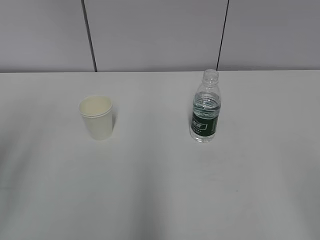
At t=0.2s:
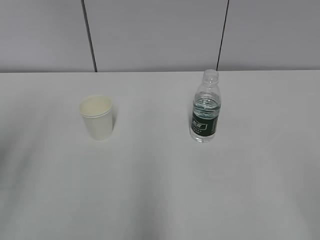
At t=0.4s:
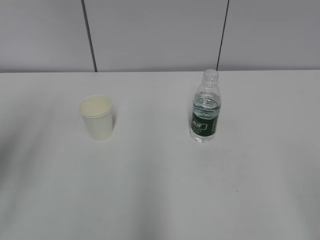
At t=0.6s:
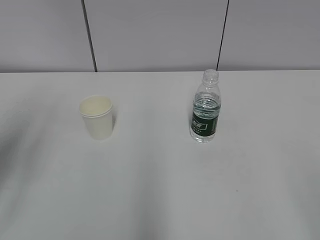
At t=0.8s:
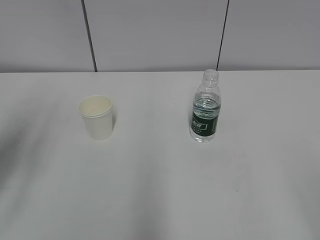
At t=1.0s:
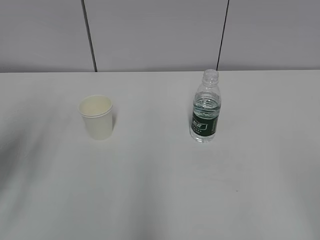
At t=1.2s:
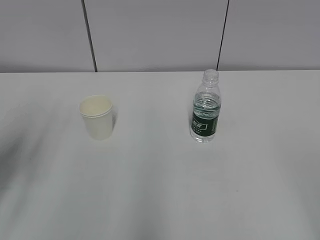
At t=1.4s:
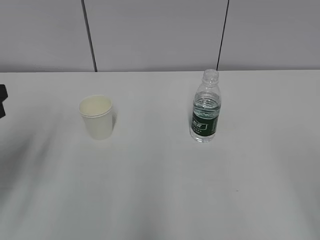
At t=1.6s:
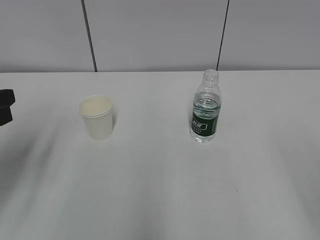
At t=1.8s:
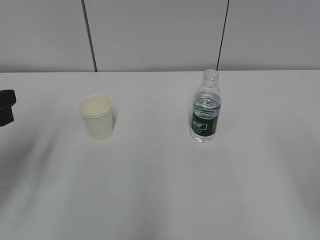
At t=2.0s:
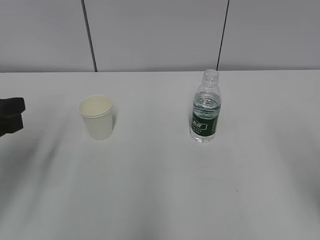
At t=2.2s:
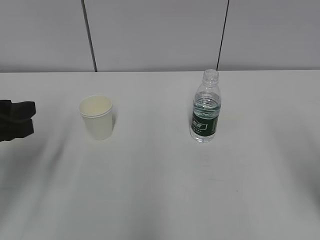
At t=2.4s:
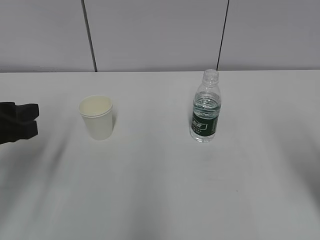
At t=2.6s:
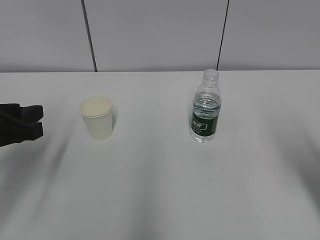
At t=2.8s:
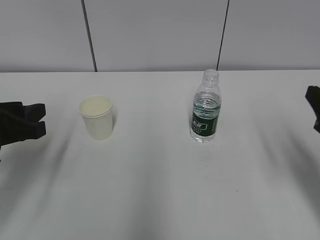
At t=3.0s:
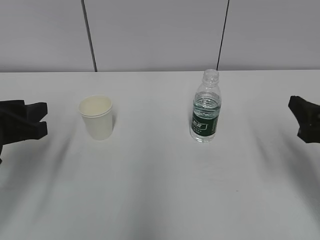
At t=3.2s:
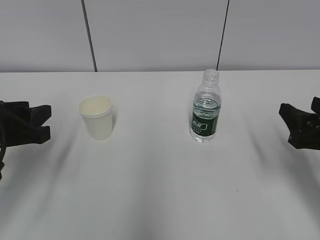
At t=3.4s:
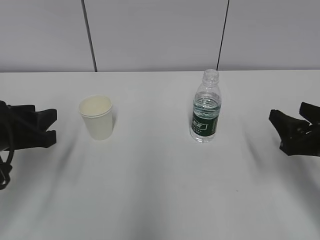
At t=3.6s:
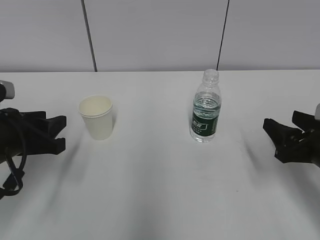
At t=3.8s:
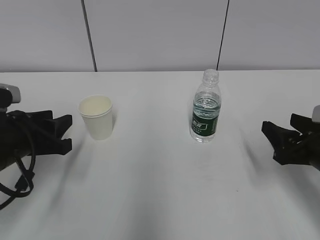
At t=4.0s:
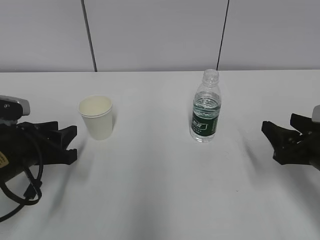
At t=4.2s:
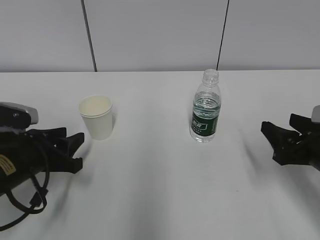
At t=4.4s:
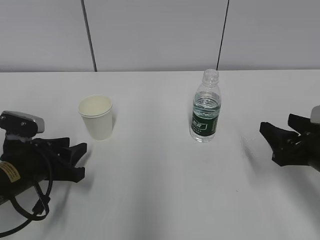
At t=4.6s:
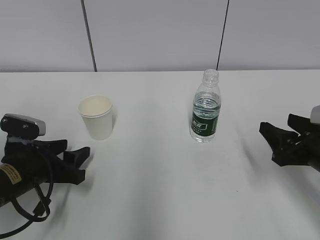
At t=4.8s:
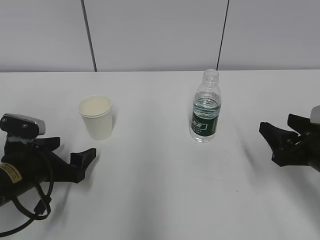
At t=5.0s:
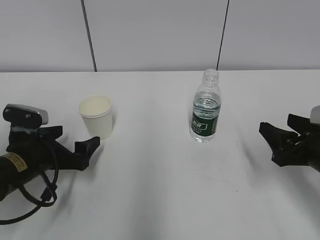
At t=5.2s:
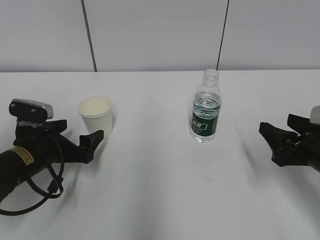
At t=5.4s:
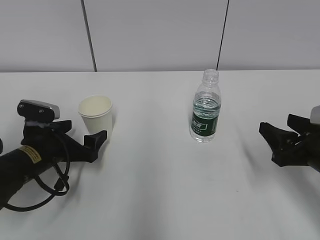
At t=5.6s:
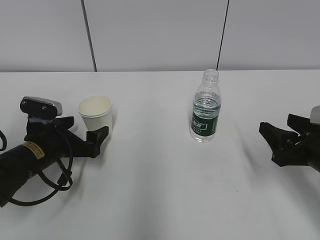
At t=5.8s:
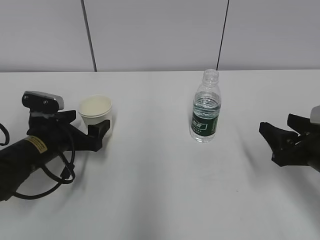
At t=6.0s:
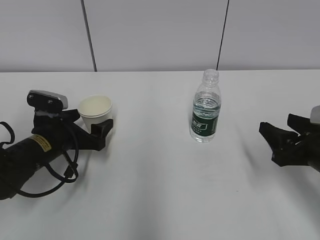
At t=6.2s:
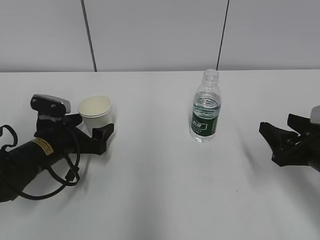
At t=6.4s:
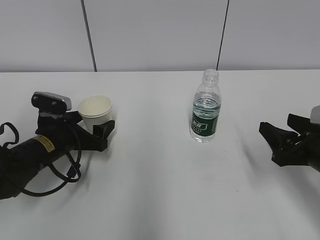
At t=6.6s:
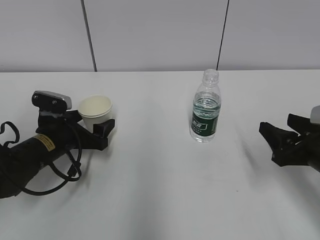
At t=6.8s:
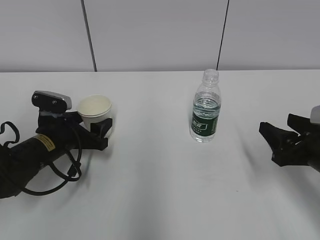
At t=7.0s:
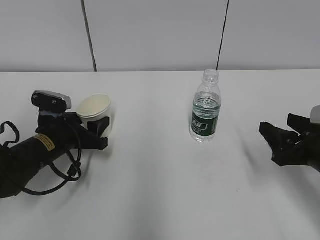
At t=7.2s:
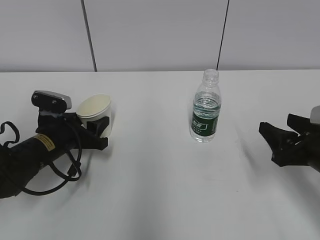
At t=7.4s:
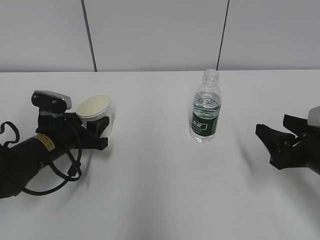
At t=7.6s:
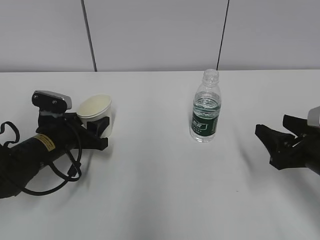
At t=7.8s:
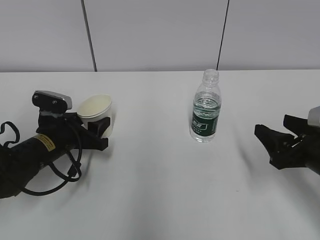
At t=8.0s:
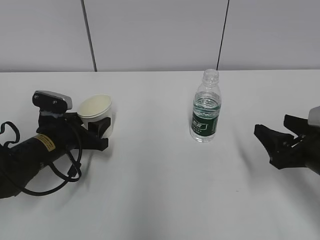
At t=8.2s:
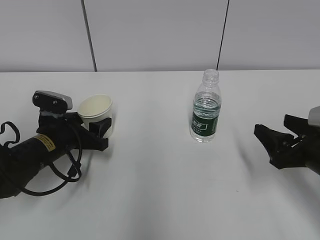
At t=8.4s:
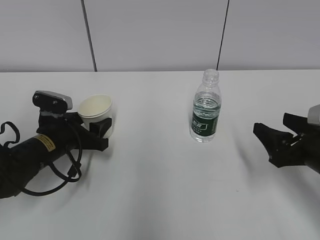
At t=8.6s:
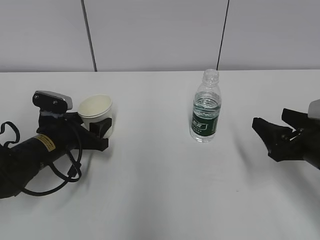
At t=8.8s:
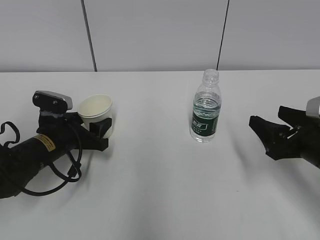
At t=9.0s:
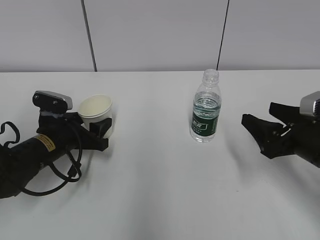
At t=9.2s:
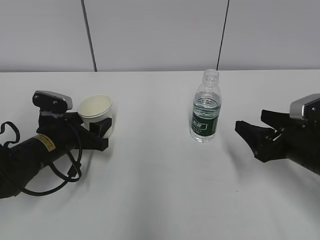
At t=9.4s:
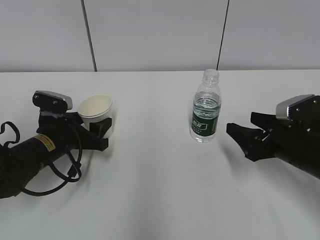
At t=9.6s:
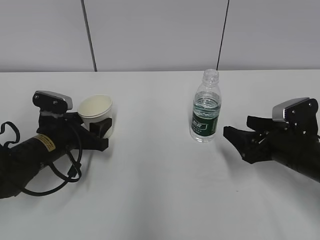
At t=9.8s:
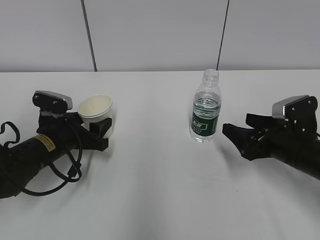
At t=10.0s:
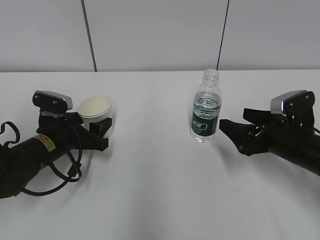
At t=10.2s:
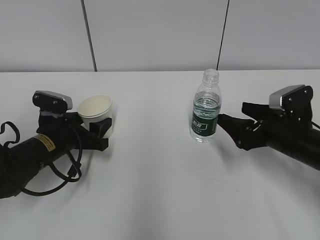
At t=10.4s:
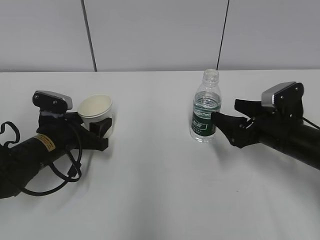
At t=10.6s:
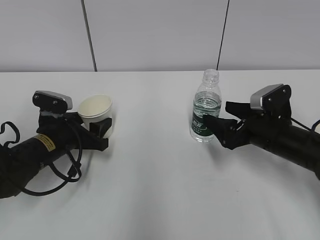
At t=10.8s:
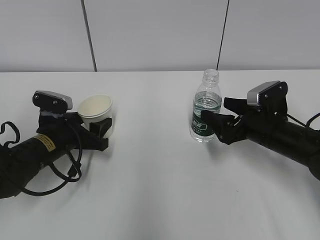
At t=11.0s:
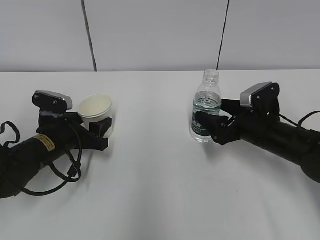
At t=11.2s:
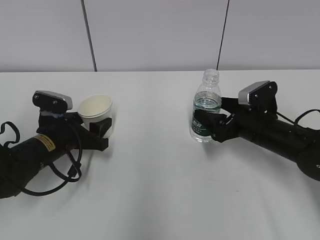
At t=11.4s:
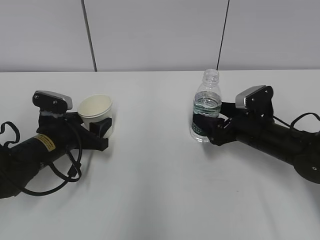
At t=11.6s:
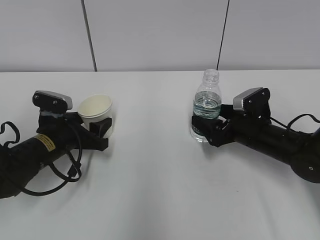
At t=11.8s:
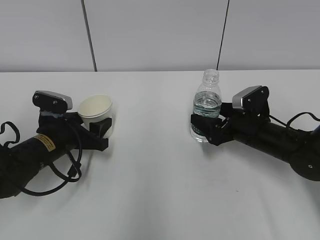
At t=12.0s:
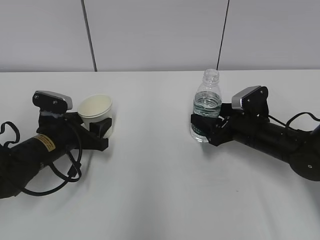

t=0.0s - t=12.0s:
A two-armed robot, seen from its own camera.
Step, t=0.0s - t=9.8s: Grab the paper cup with the left hand.
Step, t=10.0s - t=10.8s: Grab the water bottle with the right hand.
t=0.0s - t=1.6s: The left gripper shifts approximately 10 cm downward and forward.
t=1.6s - t=3.0s: The left gripper moves roughly 5 cm. The right gripper heads forward and downward, covering about 20 cm.
t=3.0s - t=4.4s: The right gripper shifts roughly 5 cm downward, while the left gripper heads downward, covering about 10 cm.
t=4.4s - t=6.0s: The left gripper goes about 5 cm forward, and opens up.
t=6.0s - t=7.6s: The left gripper closes its fingers.
t=7.6s - t=9.0s: The grippers move only a little.
t=9.0s - t=10.4s: The right gripper shifts approximately 5 cm forward, and opens up.
t=10.4s - t=12.0s: The right gripper moves about 5 cm, and closes.

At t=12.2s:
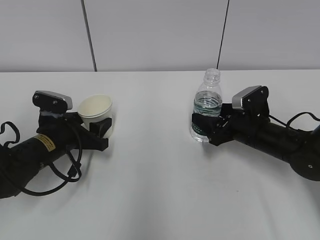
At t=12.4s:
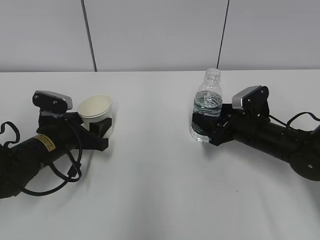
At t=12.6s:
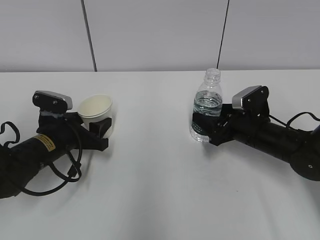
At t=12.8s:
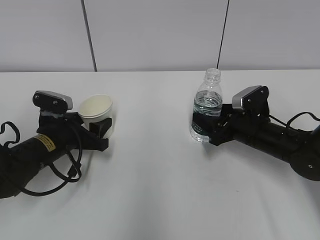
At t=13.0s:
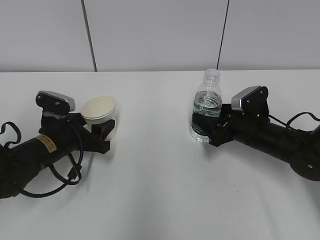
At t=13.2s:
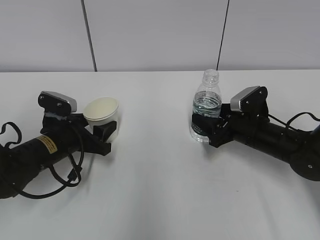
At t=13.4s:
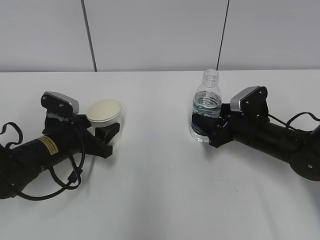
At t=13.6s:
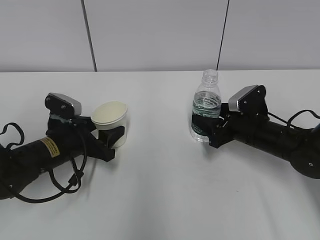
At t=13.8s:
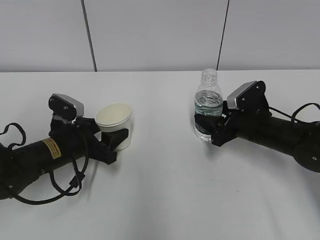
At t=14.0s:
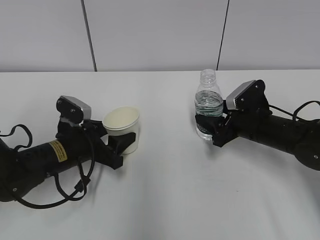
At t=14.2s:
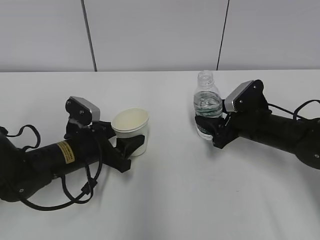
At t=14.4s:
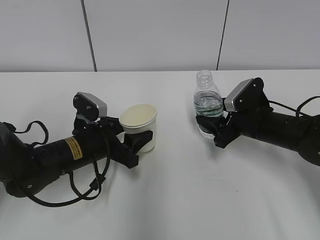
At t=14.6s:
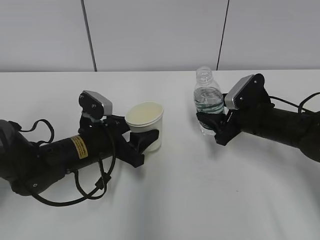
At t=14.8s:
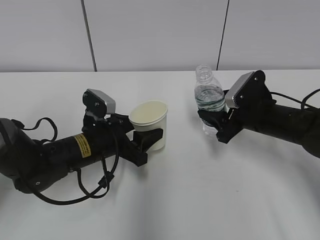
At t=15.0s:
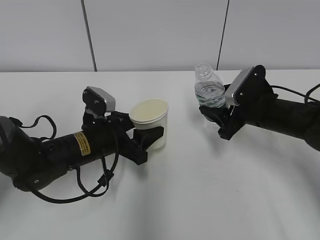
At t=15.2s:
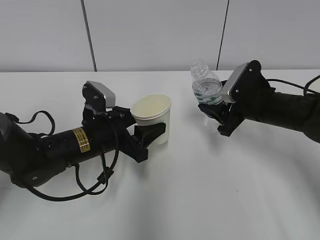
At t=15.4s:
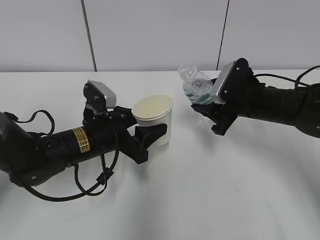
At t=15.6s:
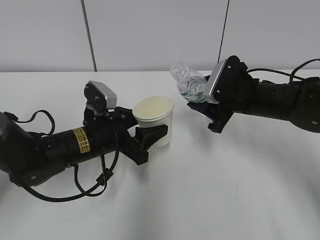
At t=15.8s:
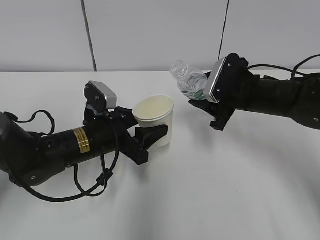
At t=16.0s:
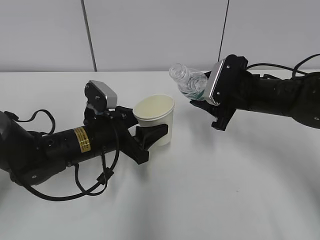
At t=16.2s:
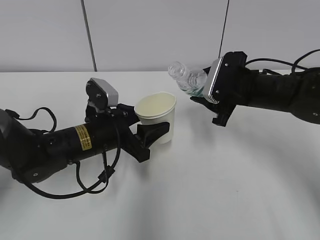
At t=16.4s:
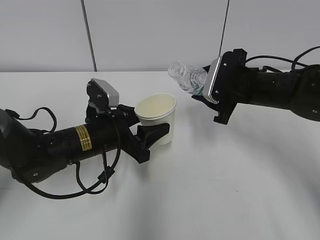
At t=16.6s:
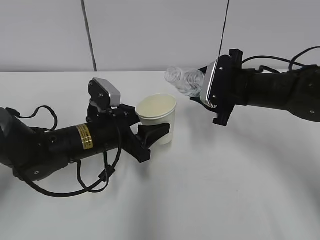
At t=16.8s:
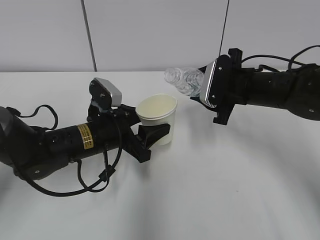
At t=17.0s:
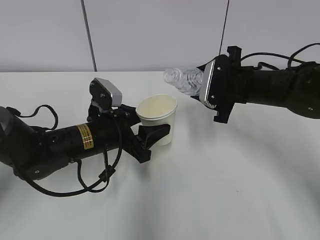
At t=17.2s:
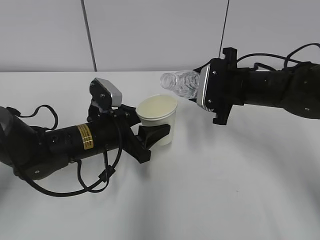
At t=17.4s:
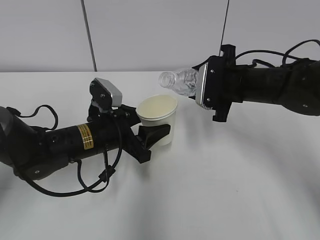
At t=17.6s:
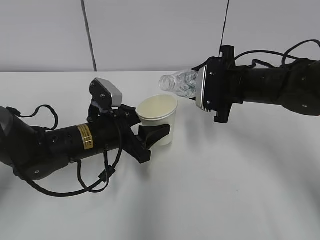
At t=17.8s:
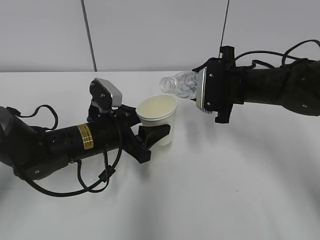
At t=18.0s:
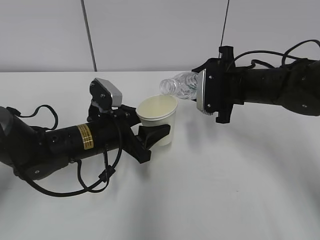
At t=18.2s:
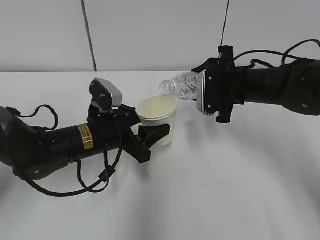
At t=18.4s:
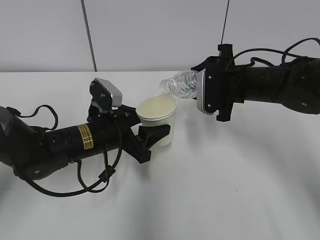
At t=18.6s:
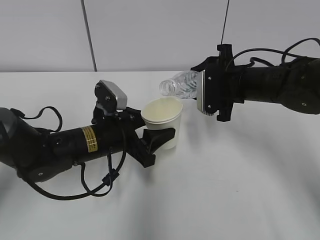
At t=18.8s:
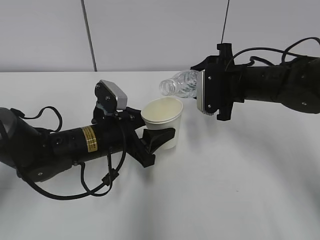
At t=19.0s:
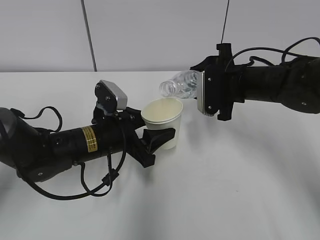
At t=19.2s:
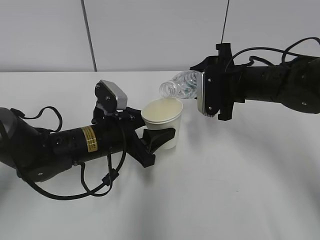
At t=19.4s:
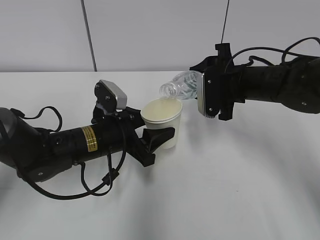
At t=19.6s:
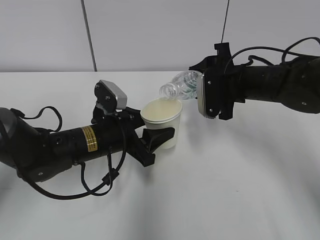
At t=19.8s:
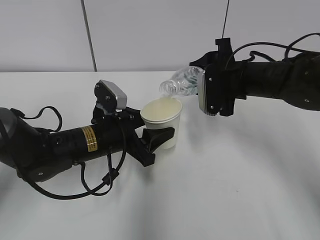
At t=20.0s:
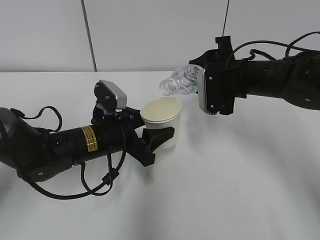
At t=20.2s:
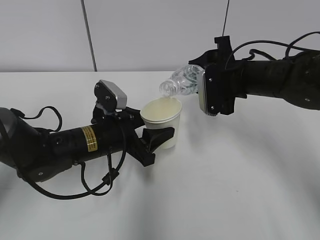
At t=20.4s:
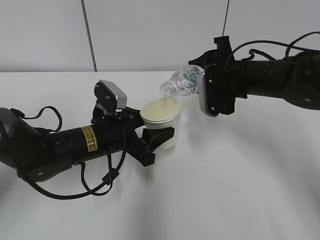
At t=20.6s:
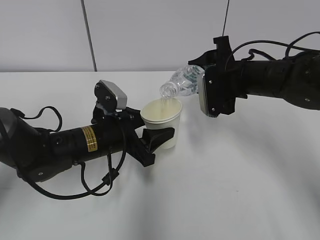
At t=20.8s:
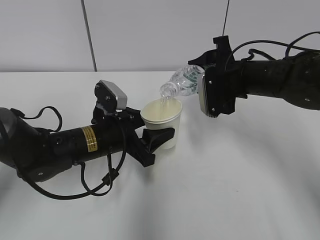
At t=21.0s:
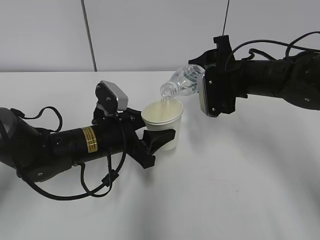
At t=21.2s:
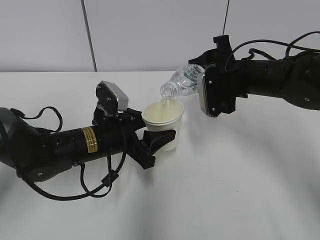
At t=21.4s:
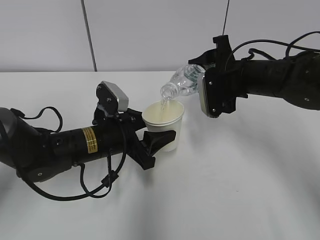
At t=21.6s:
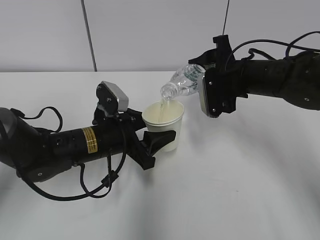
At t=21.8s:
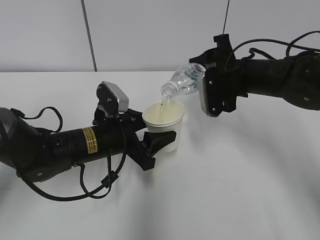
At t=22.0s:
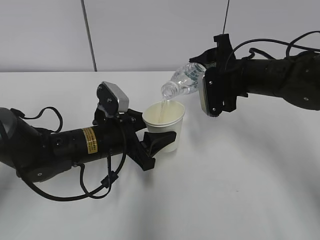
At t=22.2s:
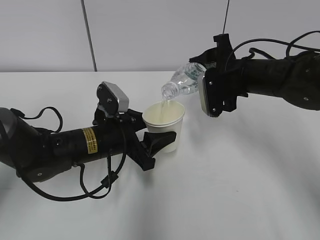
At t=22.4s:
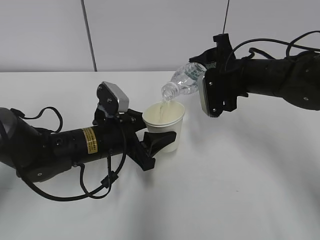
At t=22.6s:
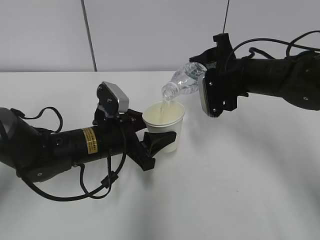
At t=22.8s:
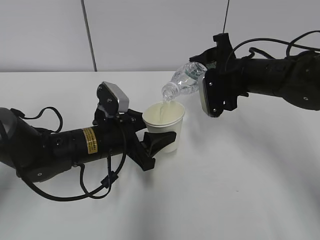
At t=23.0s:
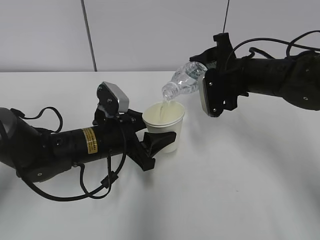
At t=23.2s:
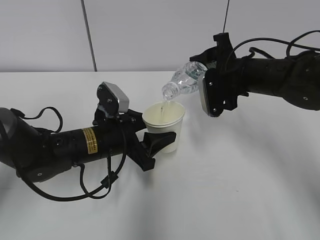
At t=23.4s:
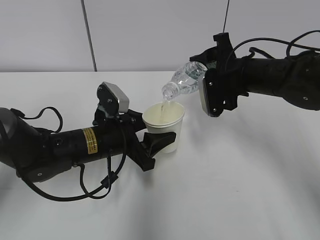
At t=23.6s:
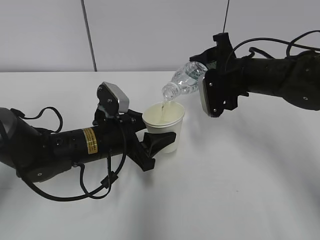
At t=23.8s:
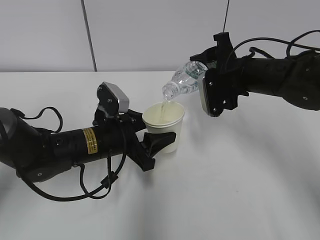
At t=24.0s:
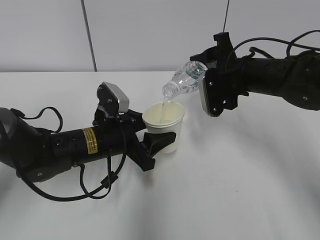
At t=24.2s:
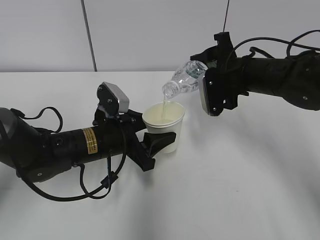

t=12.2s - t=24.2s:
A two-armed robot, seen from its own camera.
Step, t=12.2s - t=16.2s: Lift the paper cup with the left hand.
Step, t=16.4s - t=20.0s: Fill water with the left hand.
Step, t=16.4s - t=20.0s: Pour water with the right hand.
Step, t=20.2s - t=22.0s: Collect water with the right hand.
t=12.2s - t=13.8s: The grippers make only small movements.
t=13.8s - t=15.2s: The right gripper moves upward, some 5 cm. The left gripper is displaced to the right by about 5 cm.
t=16.6s - t=18.2s: The grippers make only small movements.
t=18.2s - t=21.2s: The grippers make only small movements.
t=21.2s - t=22.6s: Both grippers stay about where they are.
t=22.6s - t=24.2s: Both grippers stay put.
